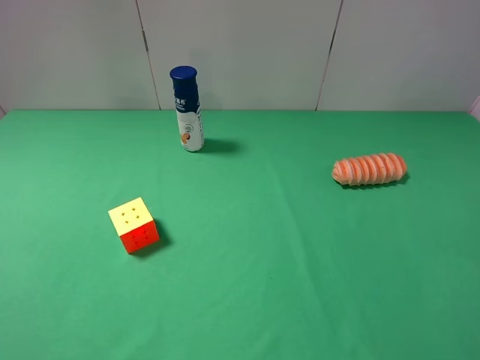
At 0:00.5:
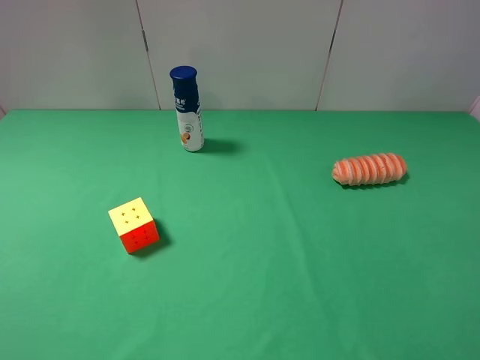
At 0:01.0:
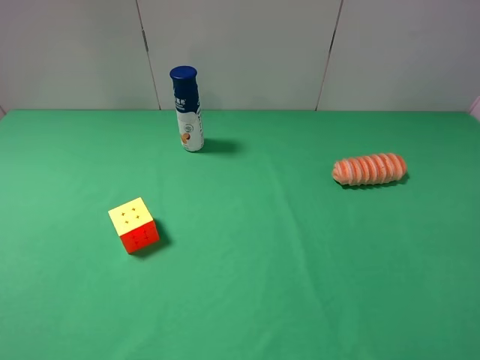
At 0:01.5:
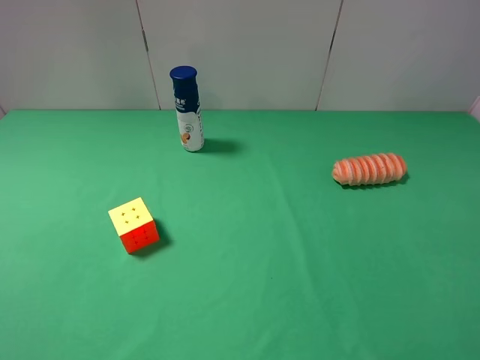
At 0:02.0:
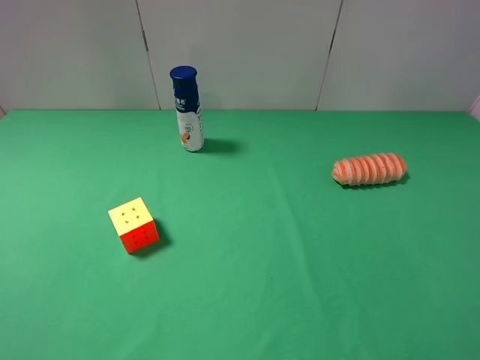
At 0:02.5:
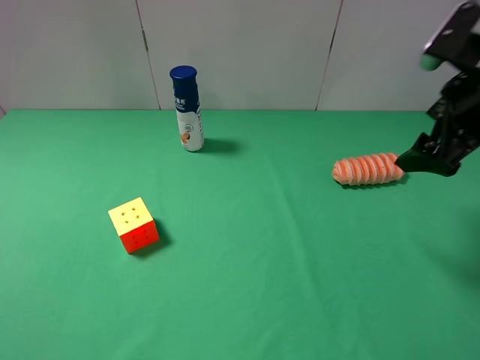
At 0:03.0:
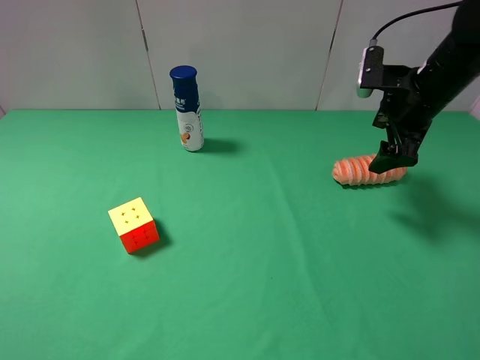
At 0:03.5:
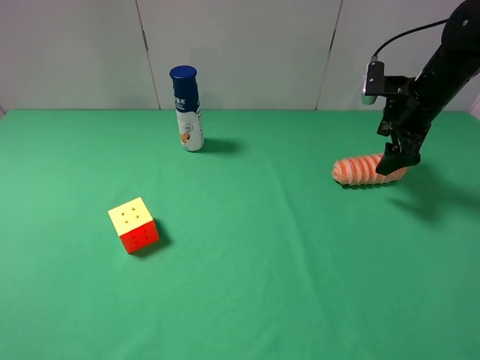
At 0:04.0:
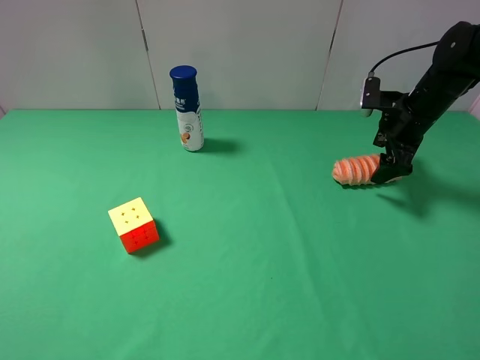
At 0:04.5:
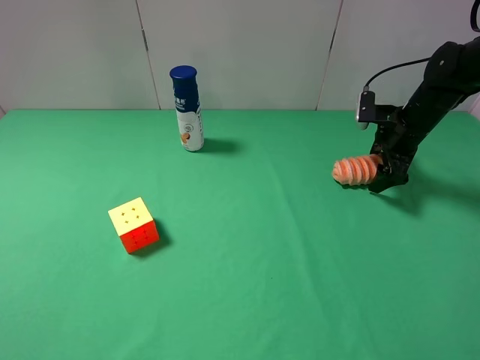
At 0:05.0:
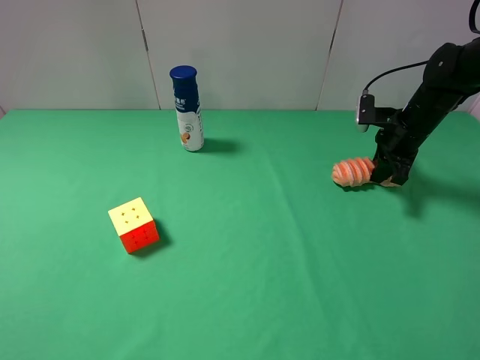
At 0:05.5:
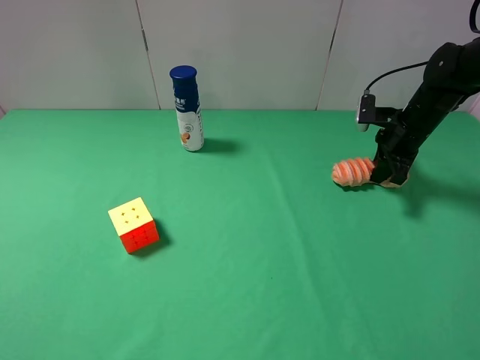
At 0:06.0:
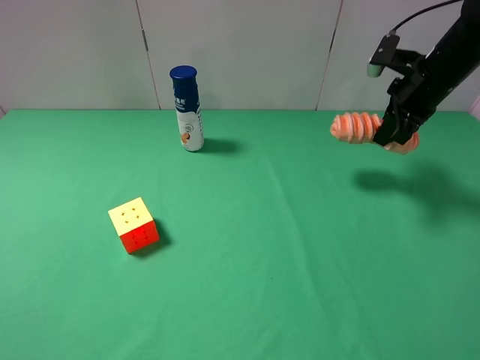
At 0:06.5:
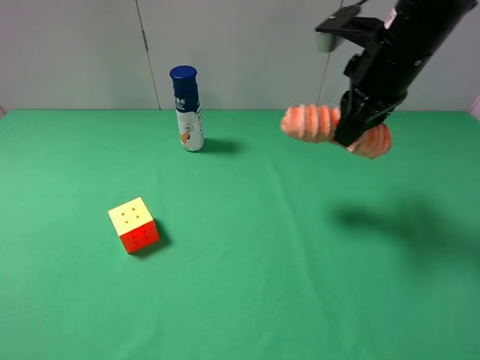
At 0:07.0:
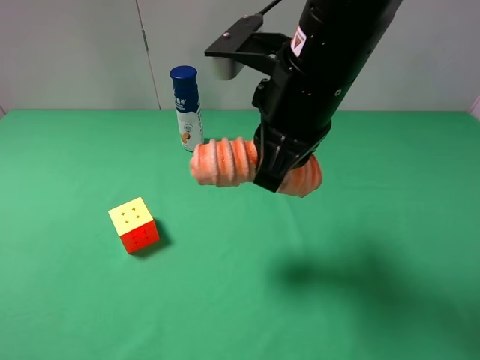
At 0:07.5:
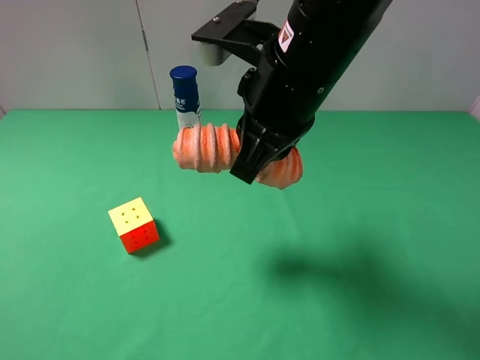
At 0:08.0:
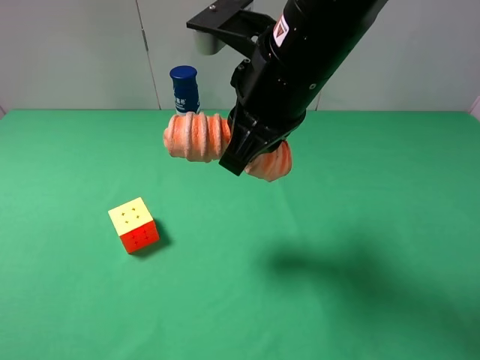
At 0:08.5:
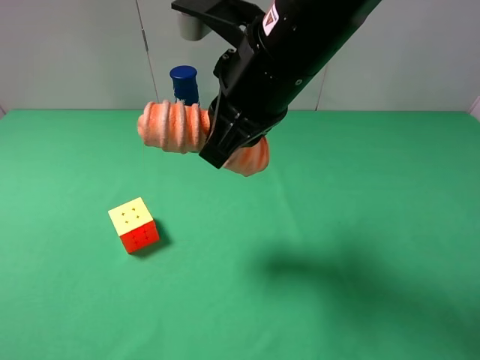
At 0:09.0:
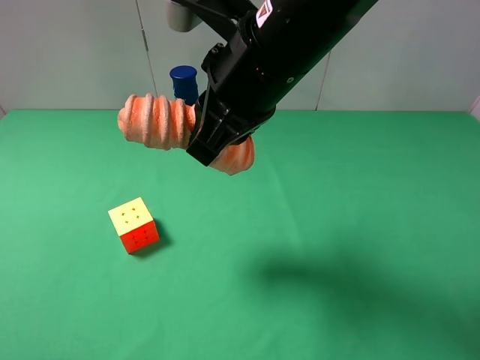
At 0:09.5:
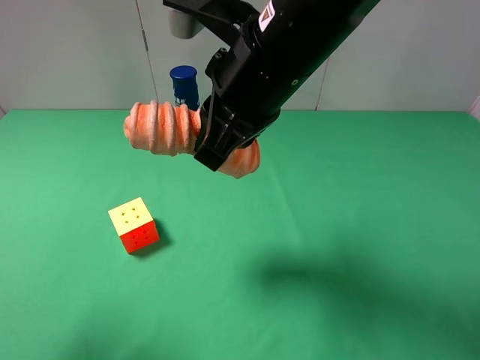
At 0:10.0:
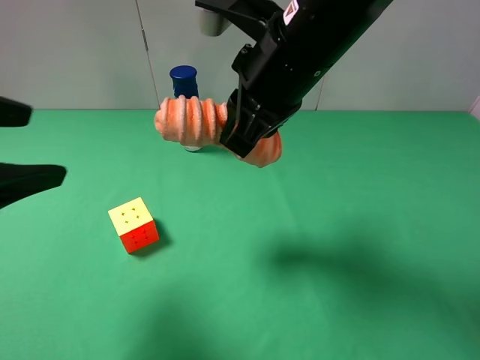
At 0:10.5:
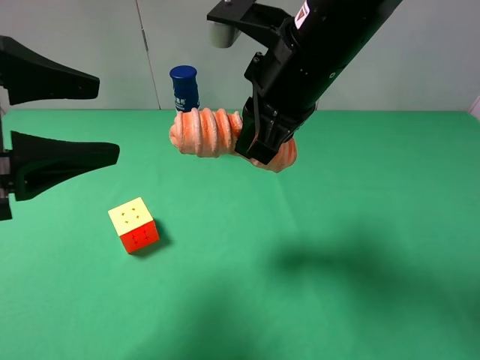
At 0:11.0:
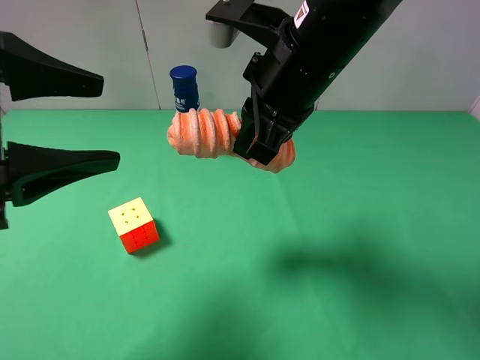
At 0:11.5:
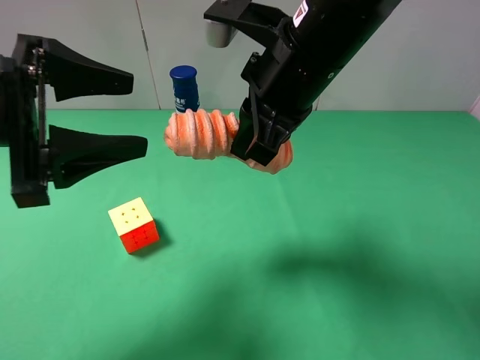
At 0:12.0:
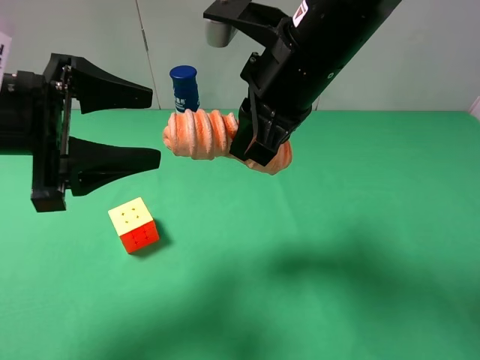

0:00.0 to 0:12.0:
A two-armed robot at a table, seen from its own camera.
Task of the whole recording: use the right gripper to pick up the item and transfer it from the right gripper to the left gripper.
Step, 0:00.0 to 0:05.0: Use the right gripper to grab the xbreadon the right side of the table.
0:02.0 to 0:04.0: The right gripper goes approximately 35 cm forward and downward.
0:04.0 to 0:06.0: The right gripper goes about 10 cm upward, and closes.
0:06.0 to 0:08.0: The right gripper is displaced to the left and backward by about 25 cm.
0:08.0 to 0:10.0: The left gripper heads forward and to the right, covering about 15 cm.
0:10.0 to 0:12.0: The left gripper moves forward, approximately 5 cm.

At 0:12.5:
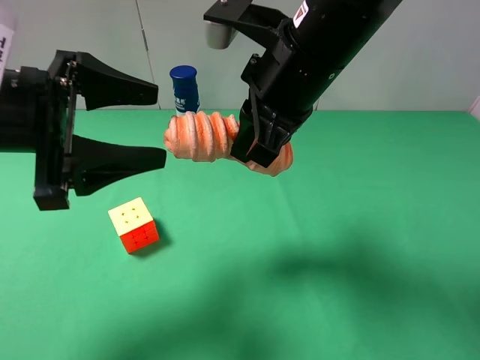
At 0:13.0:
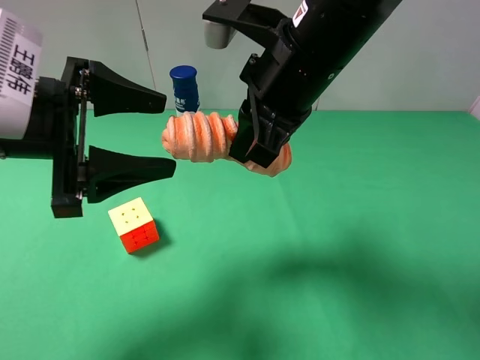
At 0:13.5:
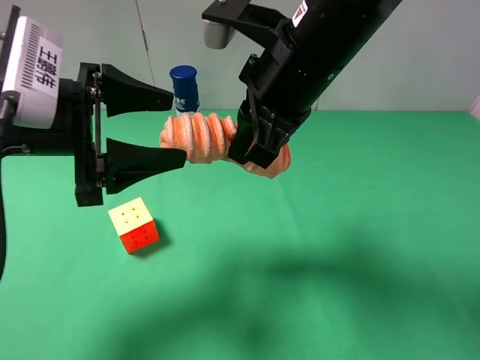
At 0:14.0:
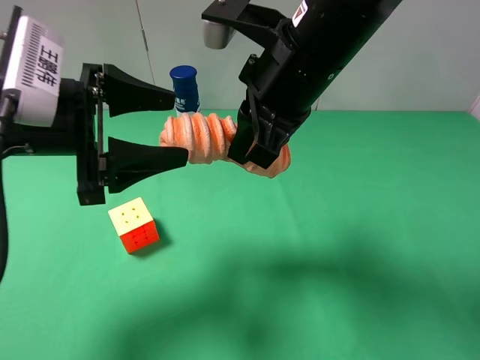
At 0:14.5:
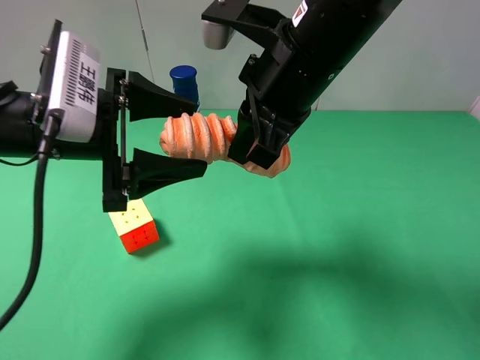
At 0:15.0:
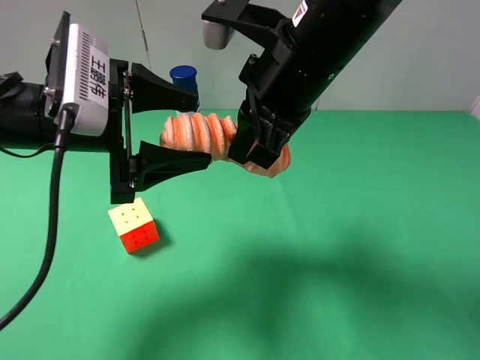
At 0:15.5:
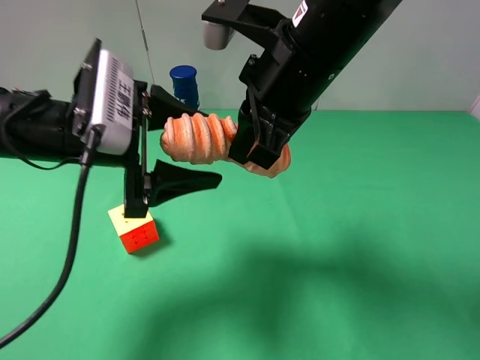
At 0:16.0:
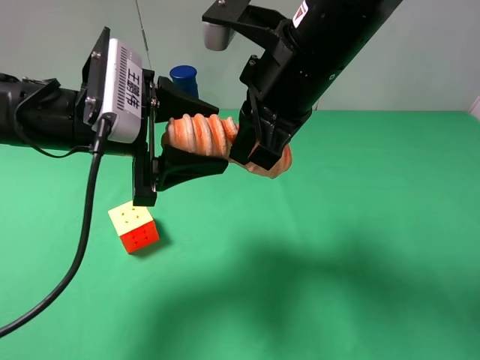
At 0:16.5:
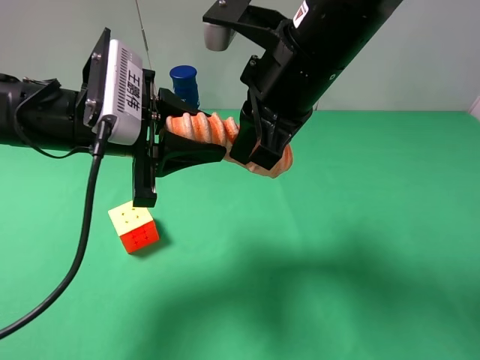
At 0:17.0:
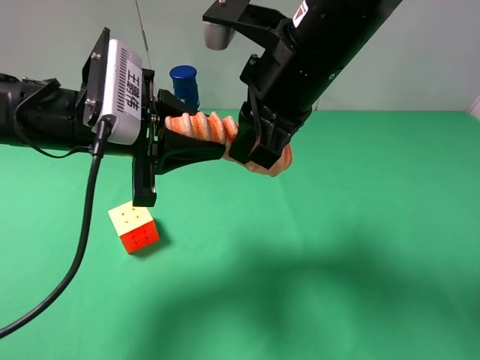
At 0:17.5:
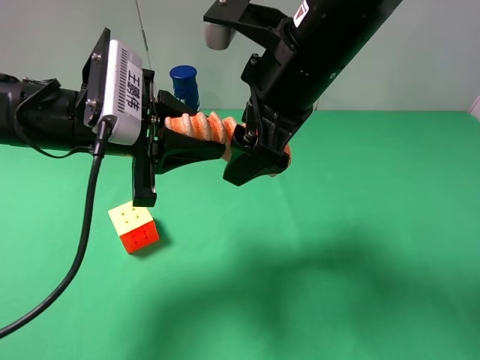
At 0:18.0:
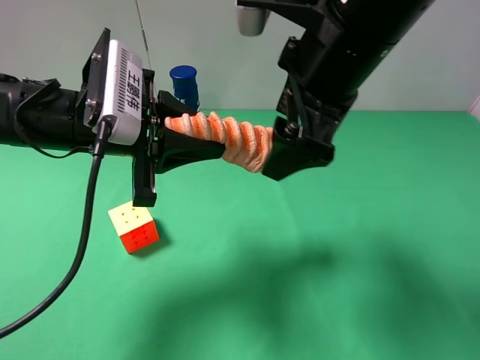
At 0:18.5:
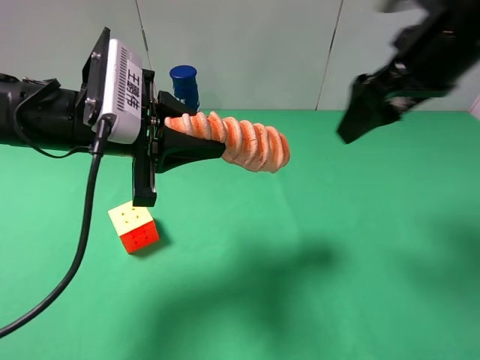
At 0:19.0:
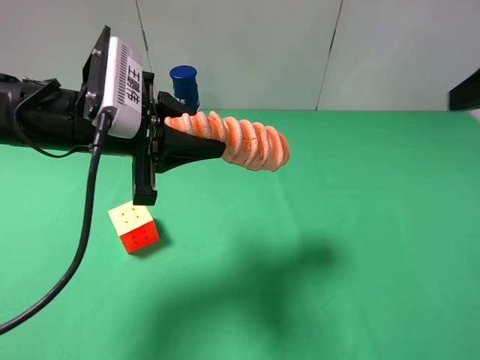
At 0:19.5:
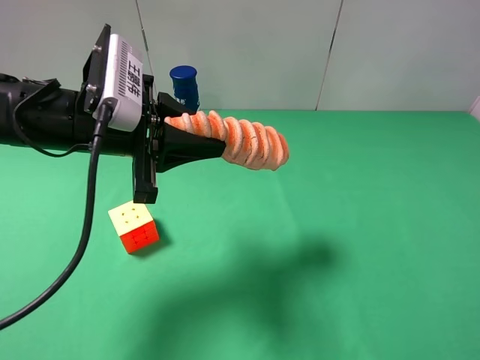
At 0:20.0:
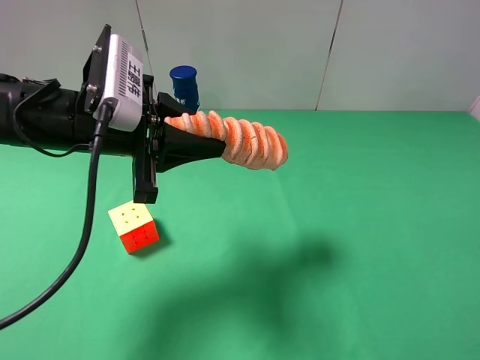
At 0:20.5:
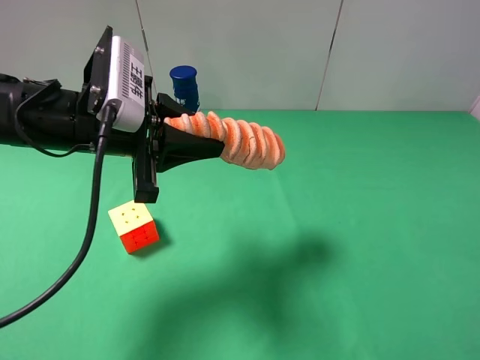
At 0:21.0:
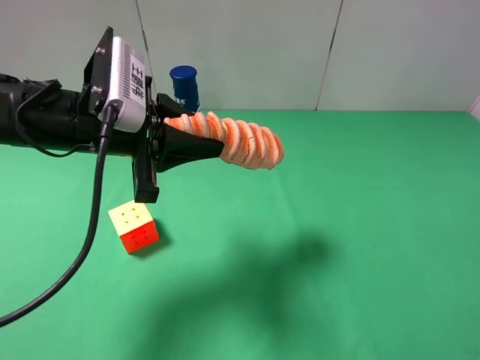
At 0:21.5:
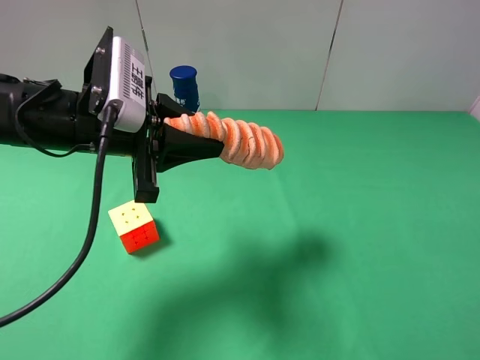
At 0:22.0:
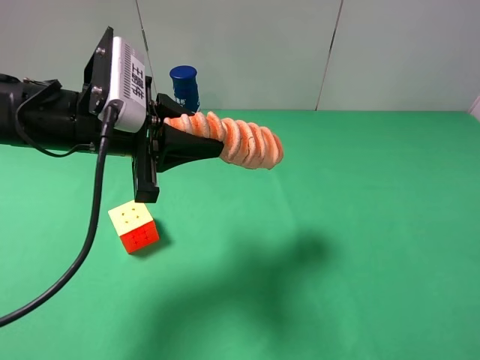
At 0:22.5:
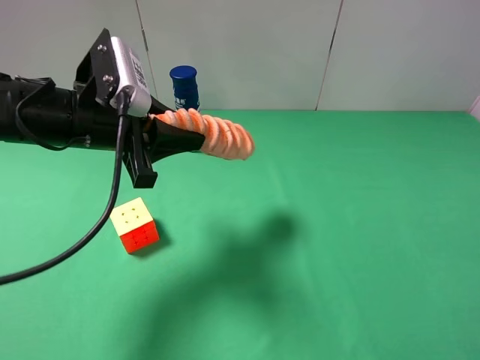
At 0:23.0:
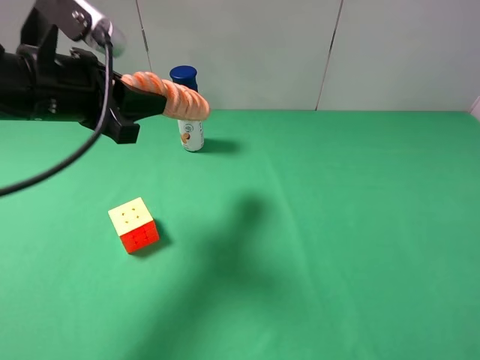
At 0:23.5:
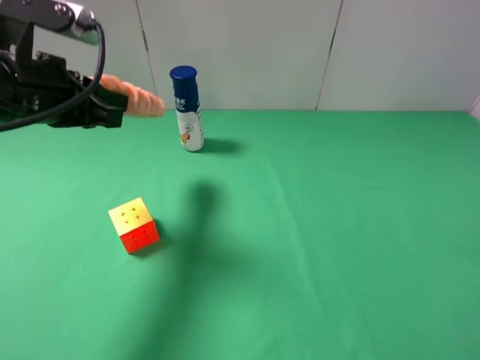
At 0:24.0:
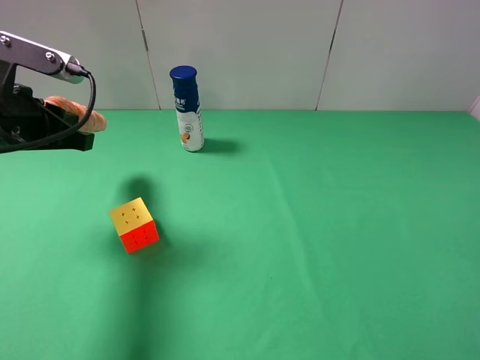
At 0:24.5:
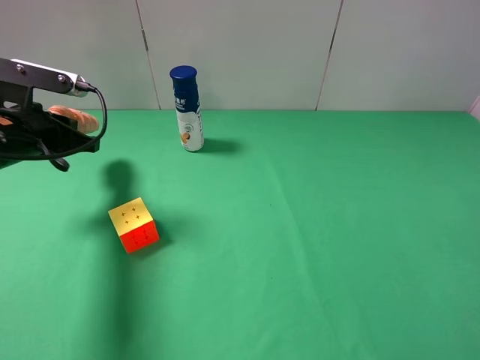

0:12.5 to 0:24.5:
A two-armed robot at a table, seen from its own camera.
Task of the whole recording: use the right gripper to pick up the item and transfer it from the right gripper to the left gripper.
Step, 0:12.5 to 0:17.0: Pass the bread to the left gripper.
0:12.5 to 0:14.5: The grippers make only small movements.
0:14.5 to 0:16.5: The left gripper closes its fingers.
0:16.5 to 0:18.5: The right gripper is displaced to the right by roughly 15 cm, and opens.
0:18.5 to 0:20.5: The right gripper shifts roughly 25 cm backward.
0:20.5 to 0:22.5: The grippers stay close to where they were, moving slightly.
0:22.5 to 0:24.5: The left gripper shifts some 10 cm to the left.

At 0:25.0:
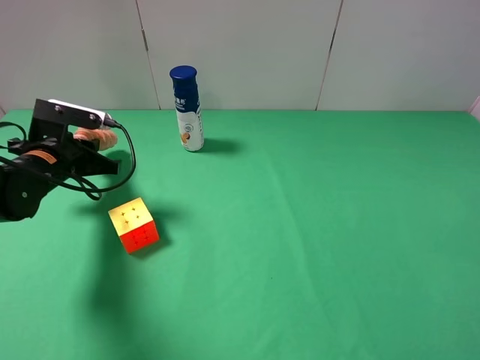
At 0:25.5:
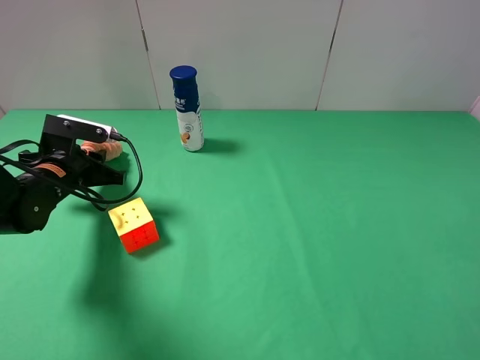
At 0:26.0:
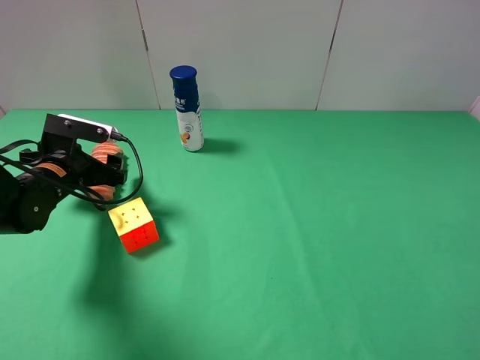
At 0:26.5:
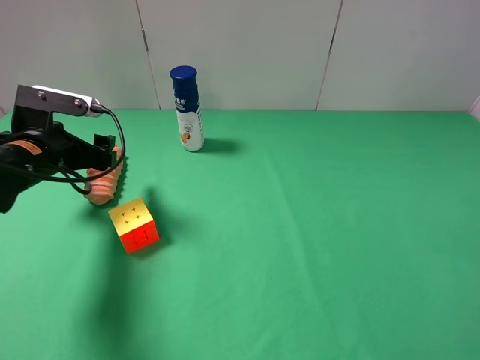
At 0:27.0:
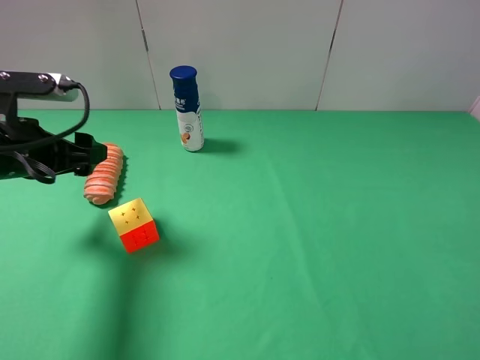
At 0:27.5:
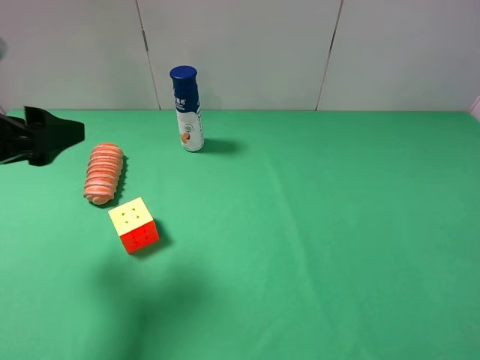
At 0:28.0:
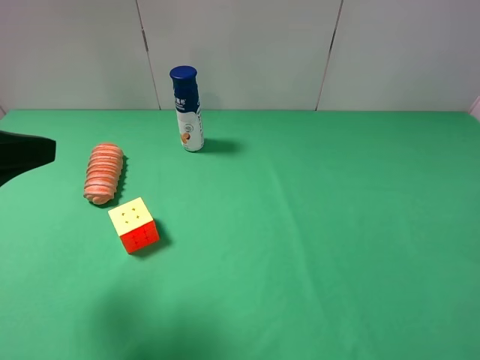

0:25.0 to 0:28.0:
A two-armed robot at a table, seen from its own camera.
Task of the whole recording: use the right gripper to pick up the item and transfer it from the right gripper to the left gripper.
0:25.0 to 0:26.5: The left gripper opens.
0:26.5 to 0:28.0: The left gripper shifts approximately 20 cm backward and upward.
